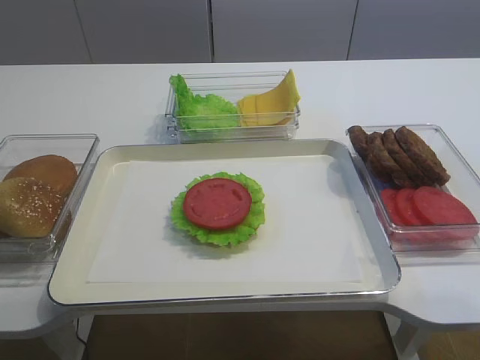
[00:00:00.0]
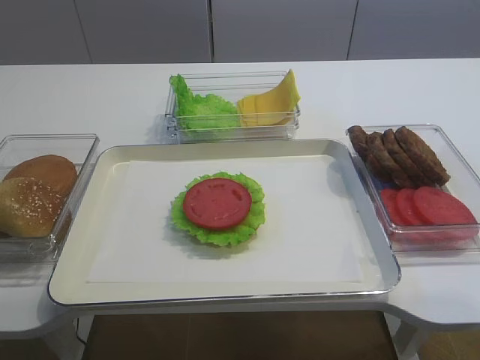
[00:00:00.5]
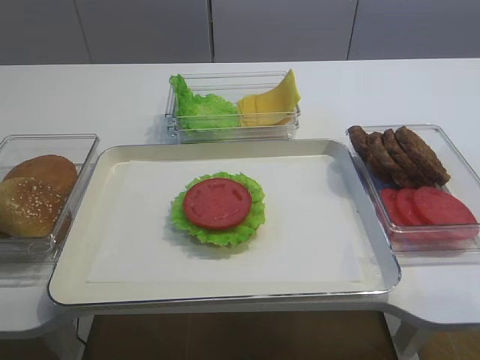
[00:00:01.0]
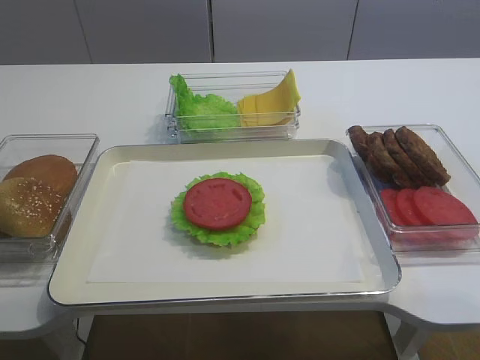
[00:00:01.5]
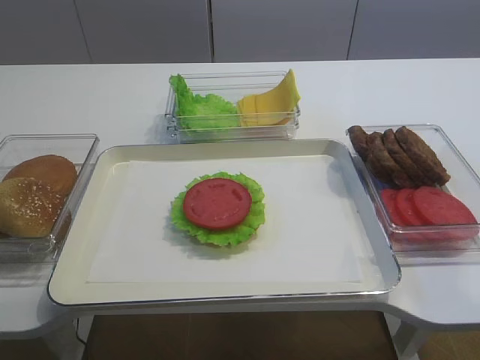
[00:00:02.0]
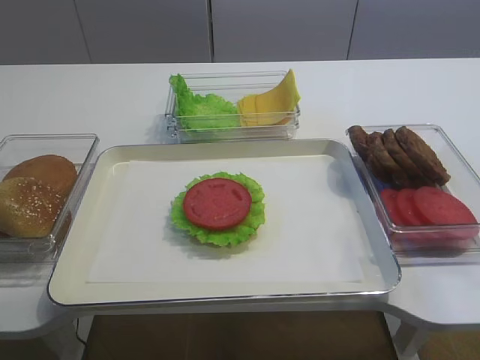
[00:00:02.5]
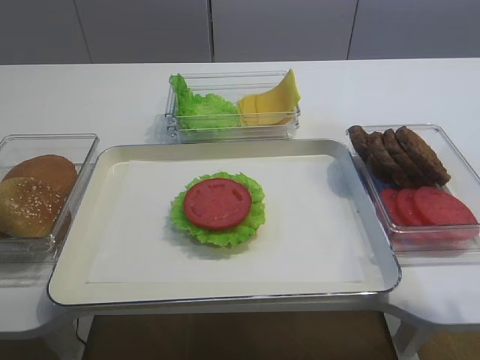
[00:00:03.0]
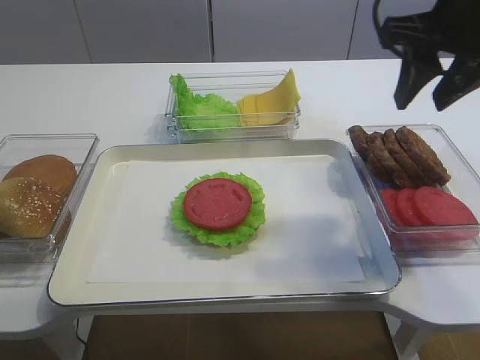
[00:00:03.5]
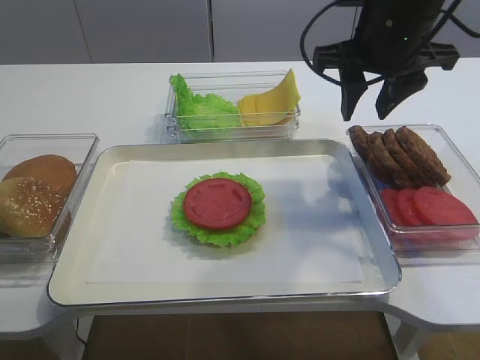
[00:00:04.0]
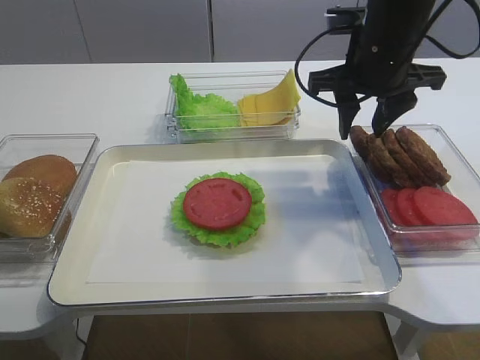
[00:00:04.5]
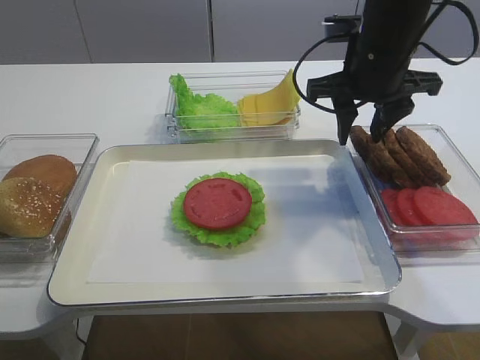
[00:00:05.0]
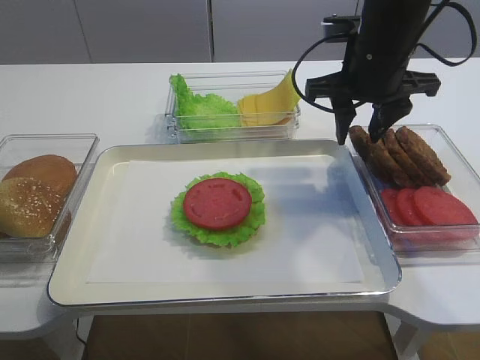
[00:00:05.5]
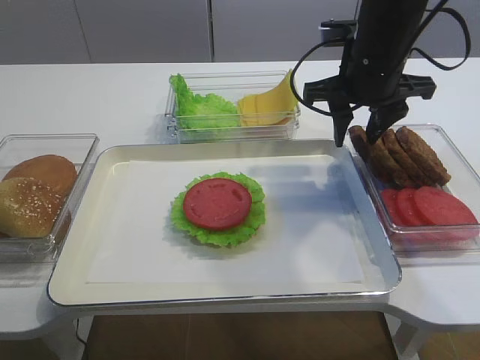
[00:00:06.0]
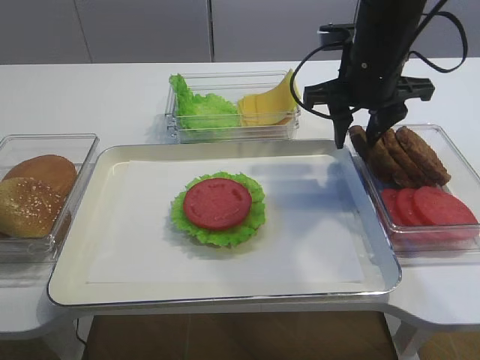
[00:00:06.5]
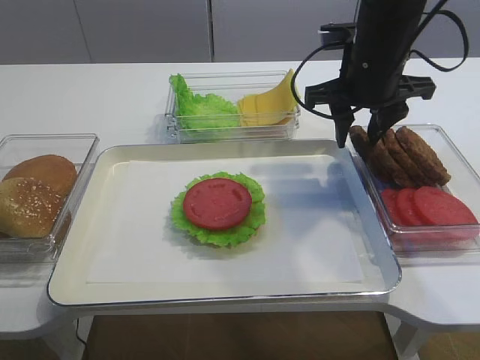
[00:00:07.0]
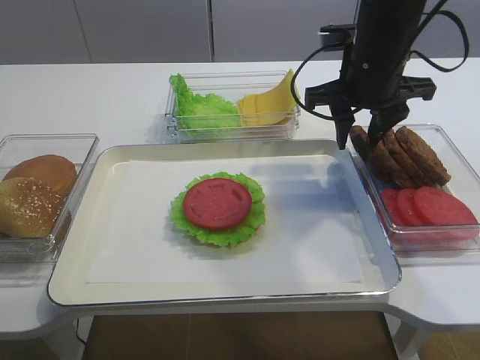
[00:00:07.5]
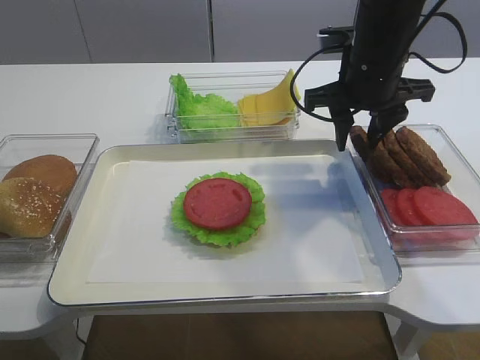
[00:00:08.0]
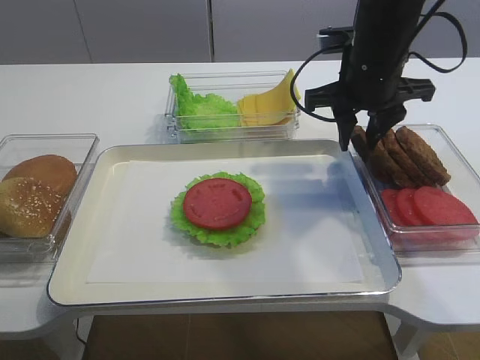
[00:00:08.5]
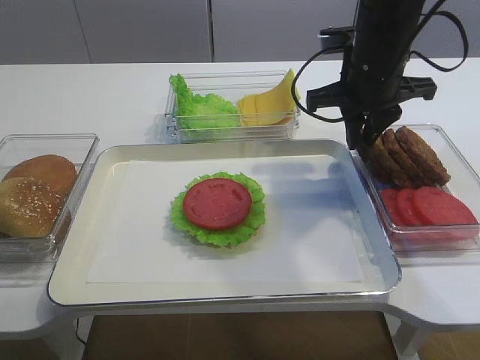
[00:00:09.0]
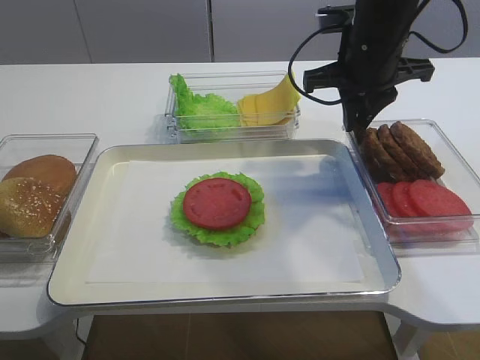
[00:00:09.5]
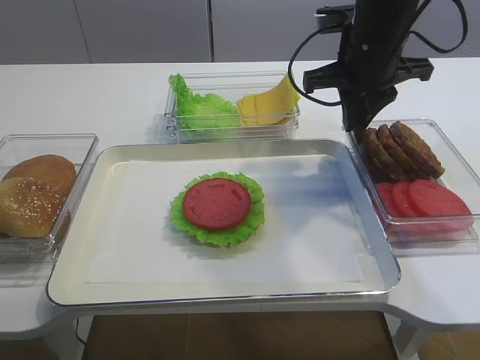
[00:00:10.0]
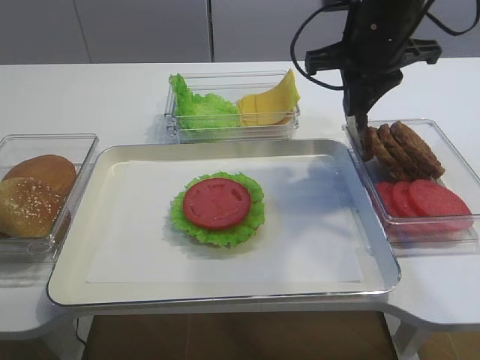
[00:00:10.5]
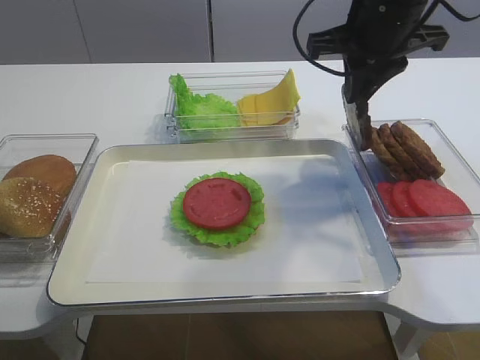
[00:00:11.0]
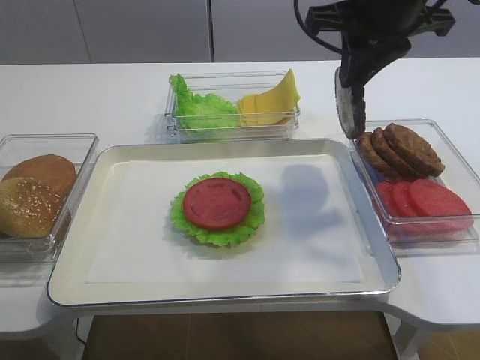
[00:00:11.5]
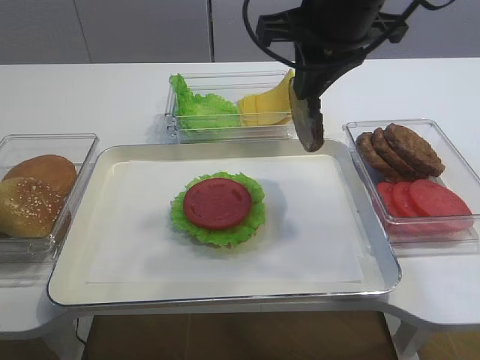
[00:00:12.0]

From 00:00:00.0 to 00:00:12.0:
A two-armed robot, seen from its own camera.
Step, from 00:00:00.0 to 00:00:10.5: Pick up the cutlet with the right gripper.
From 00:00:02.0 to 00:00:04.0: The right gripper heads forward, covering approximately 35 cm.
From 00:00:04.0 to 00:00:06.0: The right gripper moves some 5 cm.
From 00:00:06.0 to 00:00:08.0: Neither gripper changes place.
From 00:00:08.0 to 00:00:10.0: The right gripper closes.
From 00:00:10.0 to 00:00:12.0: The right gripper is displaced upward and backward by about 10 cm.

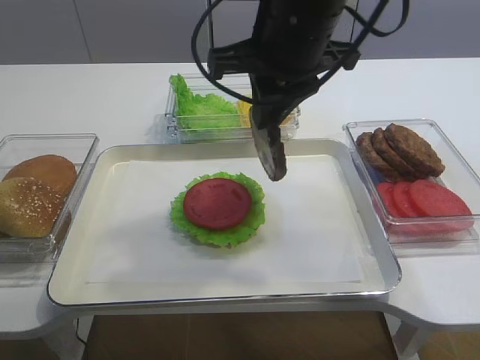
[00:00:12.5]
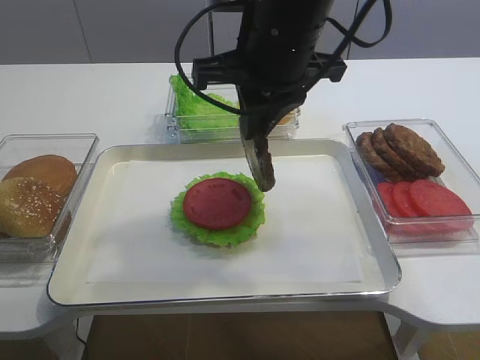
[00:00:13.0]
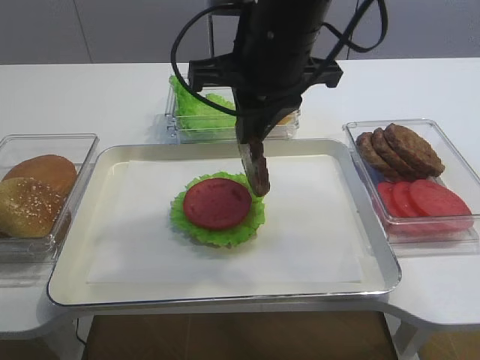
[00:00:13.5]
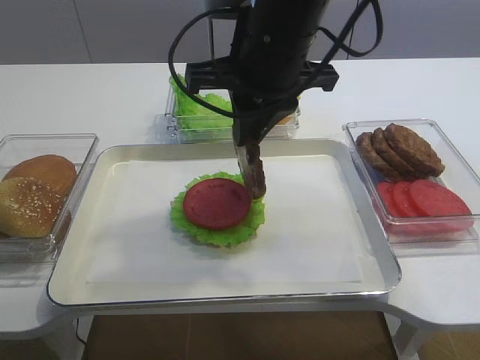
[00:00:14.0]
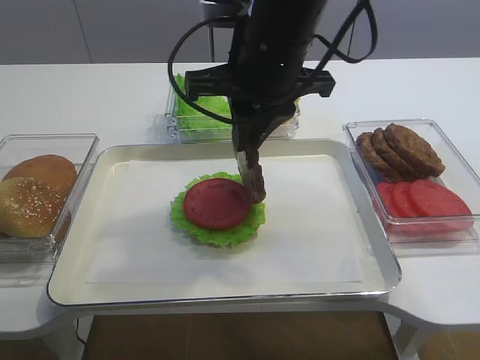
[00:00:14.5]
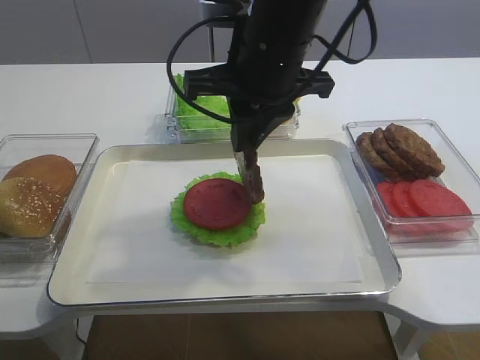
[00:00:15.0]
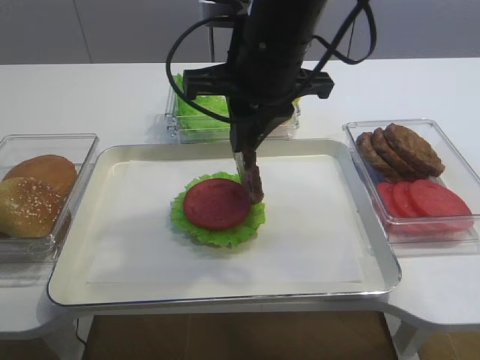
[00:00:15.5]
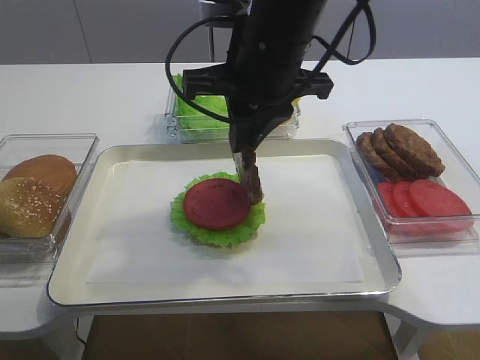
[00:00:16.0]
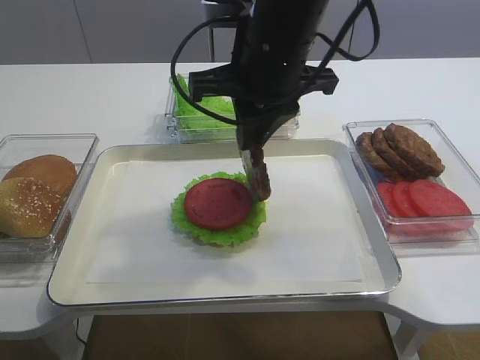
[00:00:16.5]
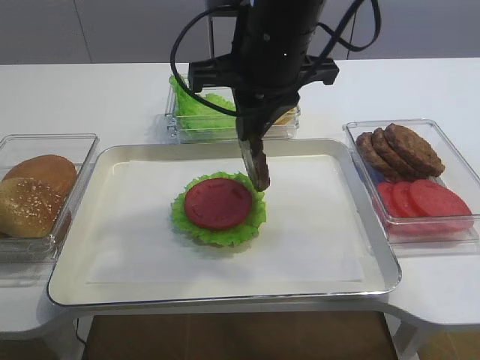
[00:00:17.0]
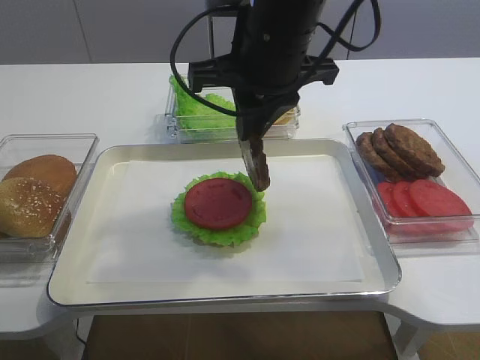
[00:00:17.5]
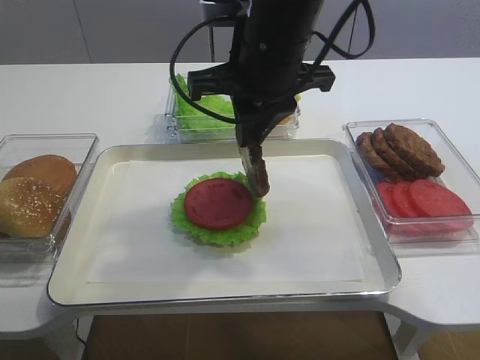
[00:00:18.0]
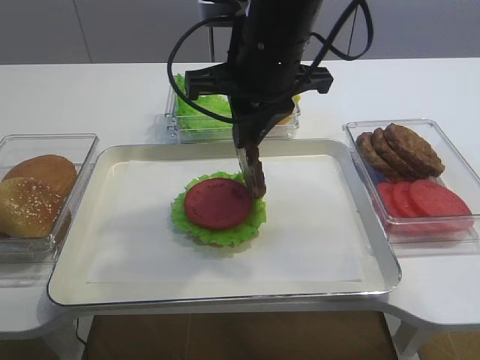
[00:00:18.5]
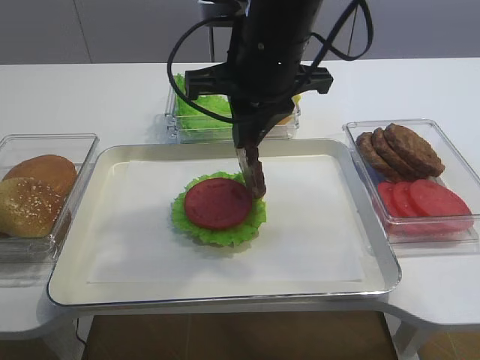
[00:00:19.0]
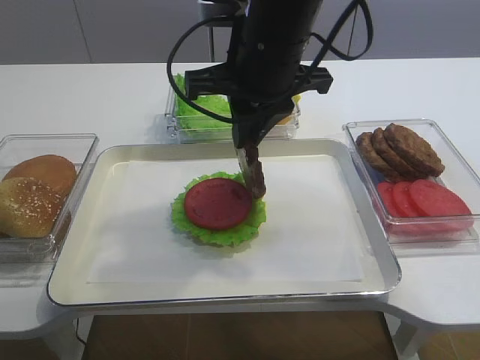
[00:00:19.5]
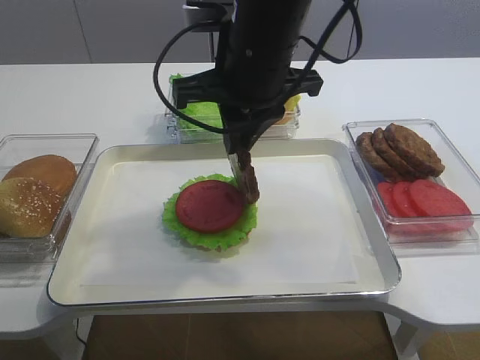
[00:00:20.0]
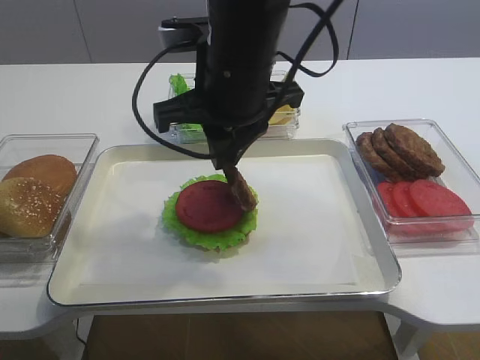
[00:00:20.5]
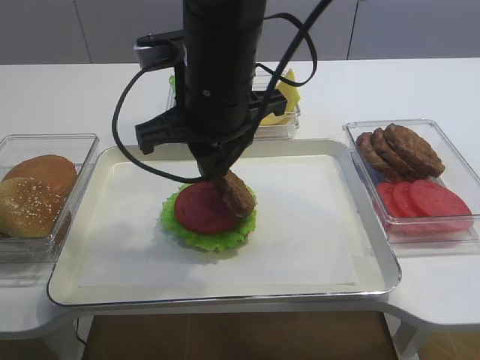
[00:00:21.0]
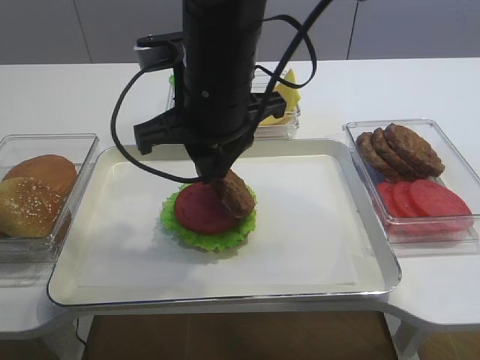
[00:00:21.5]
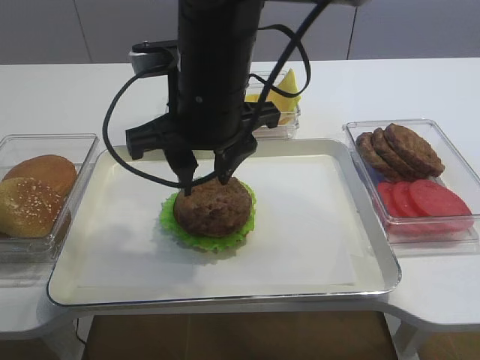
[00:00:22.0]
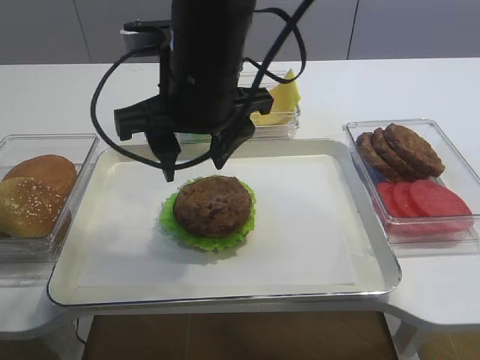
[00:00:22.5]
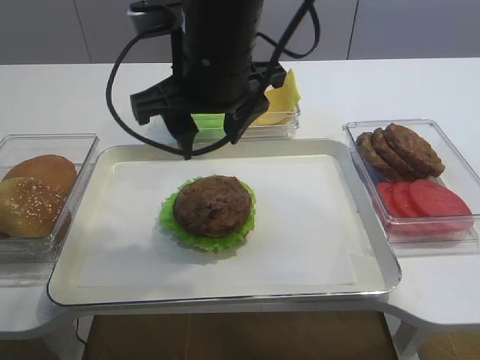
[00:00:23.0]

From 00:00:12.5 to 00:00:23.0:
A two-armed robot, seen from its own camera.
Step, from 00:00:12.5 to 00:00:22.0: Place the cutlet on the tomato slice with the right gripper.
From 00:00:12.5 to 00:00:14.5: The grippers make only small movements.
From 00:00:14.5 to 00:00:19.0: Neither gripper changes place.
From 00:00:19.0 to 00:00:21.0: The right gripper moves roughly 5 cm.
From 00:00:21.0 to 00:00:23.0: The right gripper opens up.

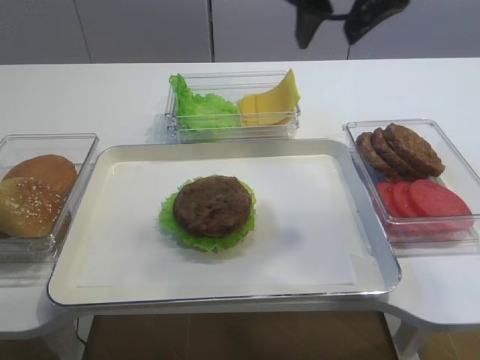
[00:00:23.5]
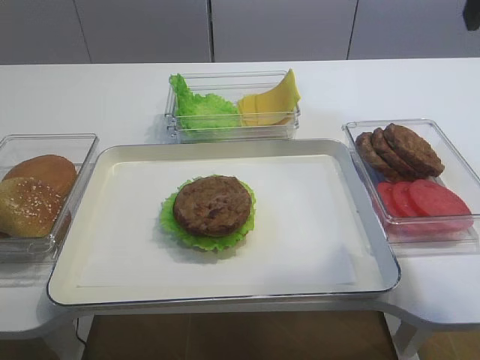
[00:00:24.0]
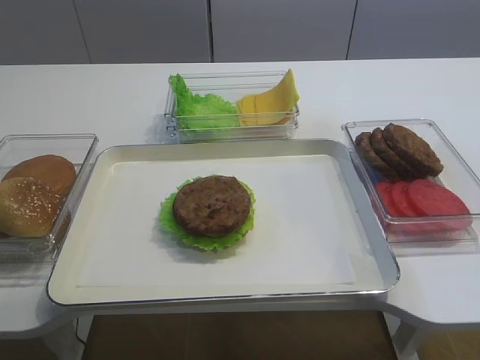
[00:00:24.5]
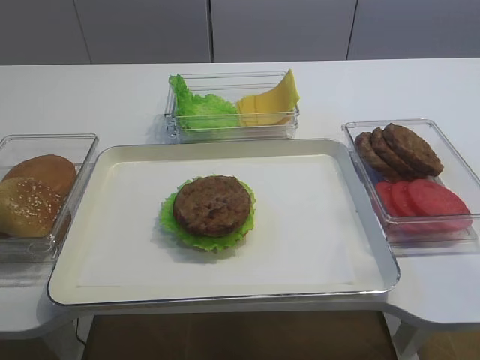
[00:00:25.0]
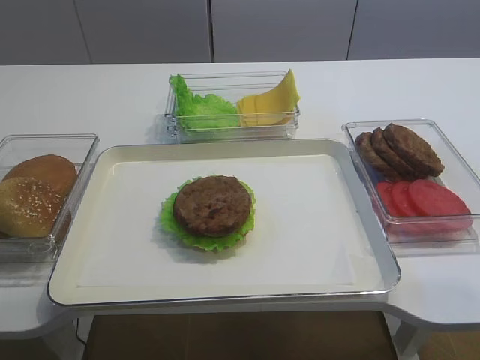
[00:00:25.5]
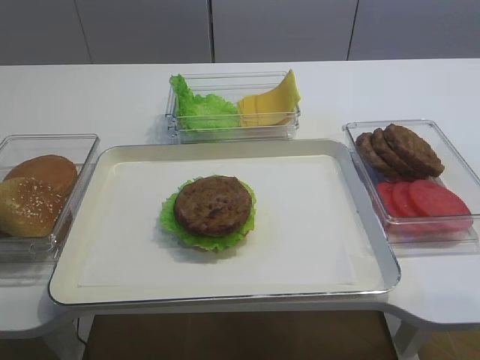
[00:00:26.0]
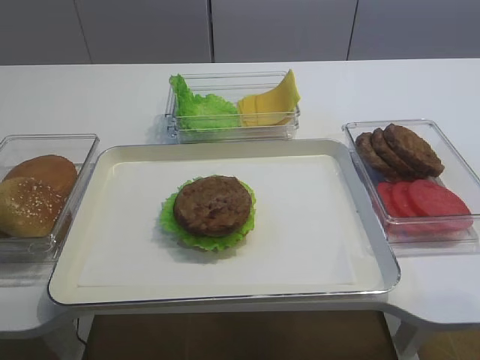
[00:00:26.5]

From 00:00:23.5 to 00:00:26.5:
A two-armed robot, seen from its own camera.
From 00:00:23.5 to 00:00:25.0: The right gripper travels backward and to the right by some 35 cm.
